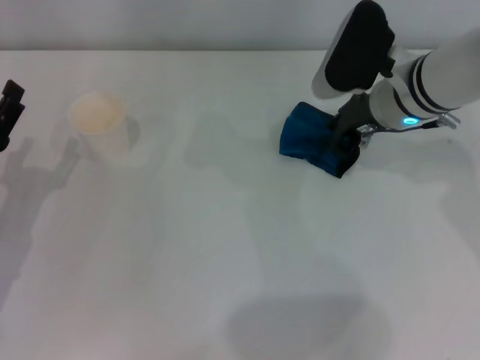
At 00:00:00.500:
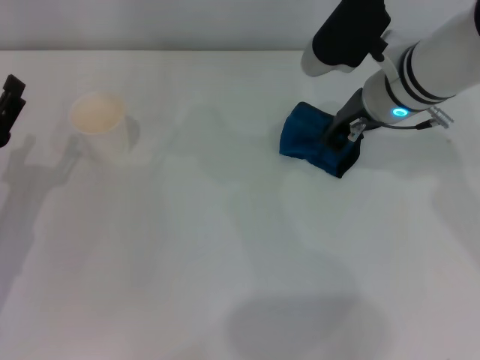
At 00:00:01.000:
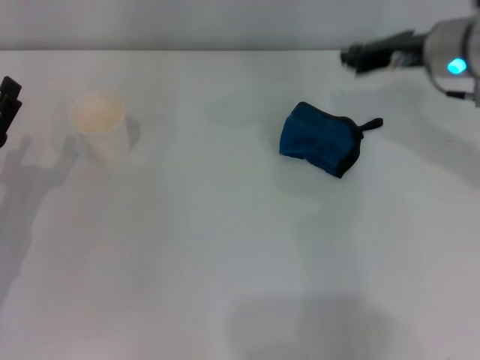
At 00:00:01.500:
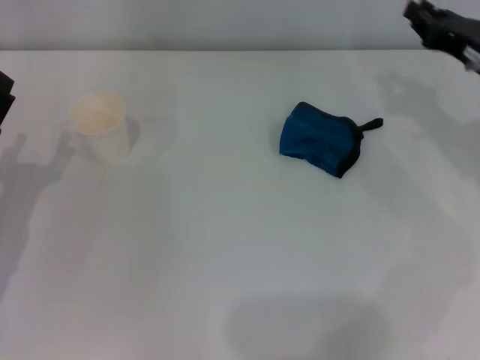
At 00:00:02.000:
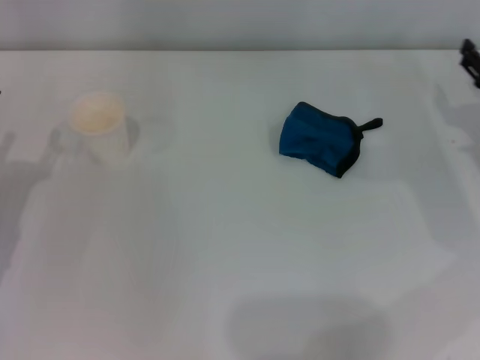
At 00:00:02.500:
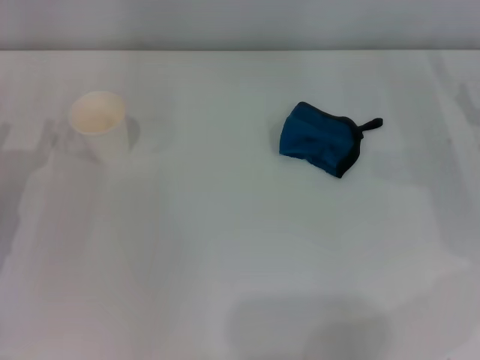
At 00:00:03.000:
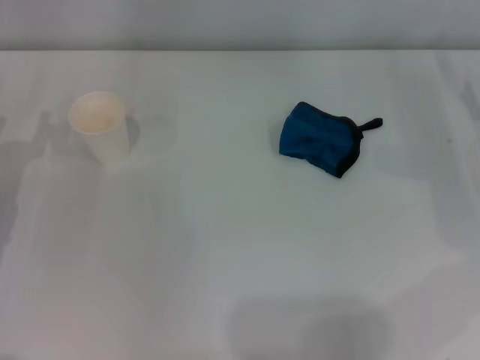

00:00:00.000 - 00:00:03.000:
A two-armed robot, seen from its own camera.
00:00:00.000 - 00:00:01.500: The right gripper travels to the right by roughly 15 cm.
00:00:01.500 - 00:00:03.000: The right gripper moves to the right, roughly 5 cm, and opens its fingers.

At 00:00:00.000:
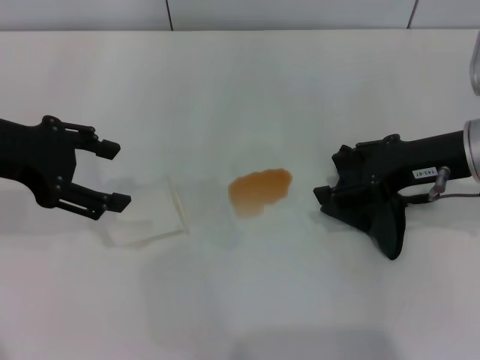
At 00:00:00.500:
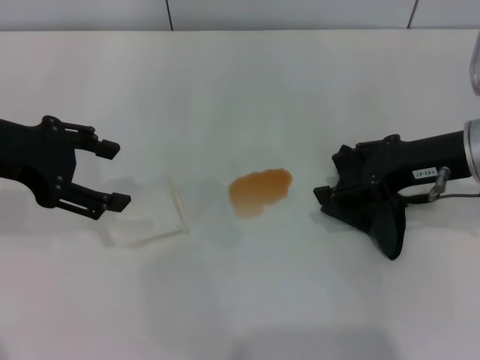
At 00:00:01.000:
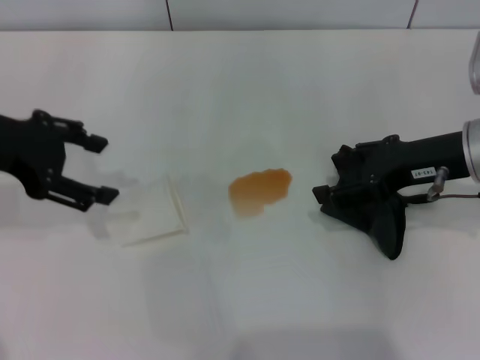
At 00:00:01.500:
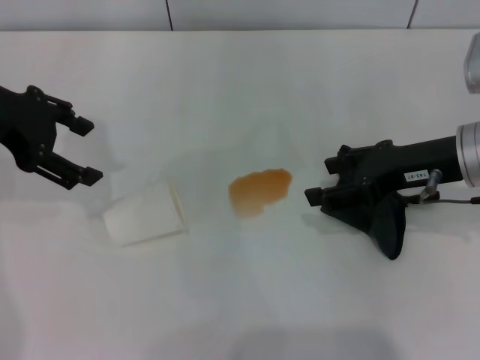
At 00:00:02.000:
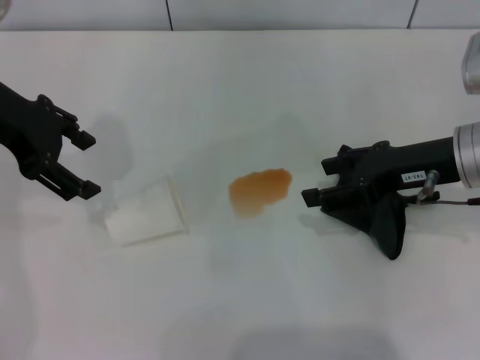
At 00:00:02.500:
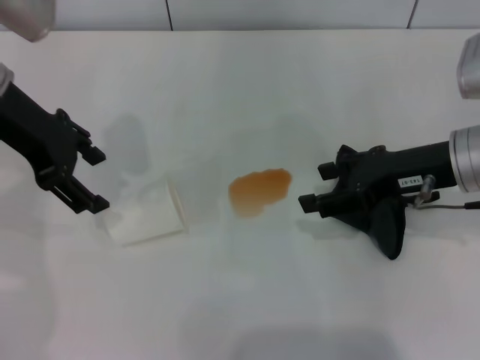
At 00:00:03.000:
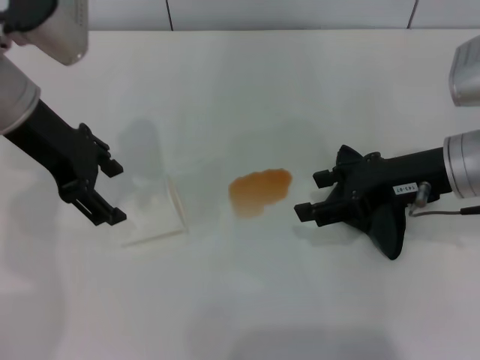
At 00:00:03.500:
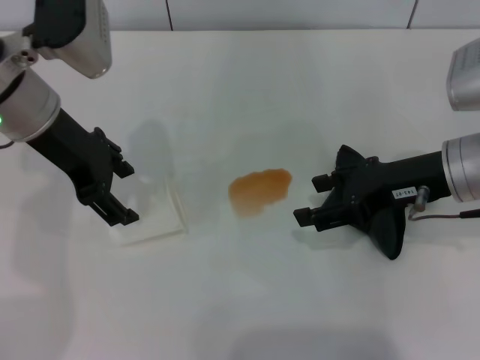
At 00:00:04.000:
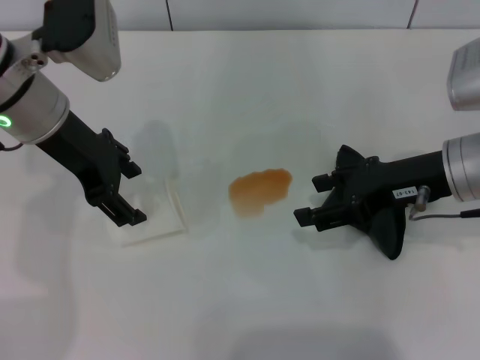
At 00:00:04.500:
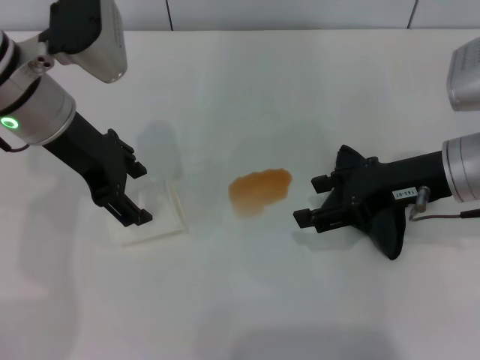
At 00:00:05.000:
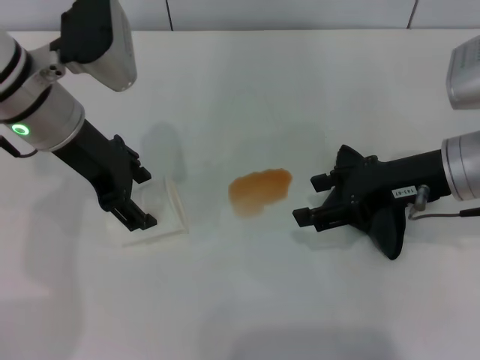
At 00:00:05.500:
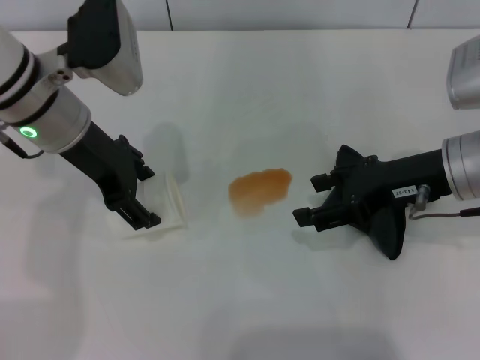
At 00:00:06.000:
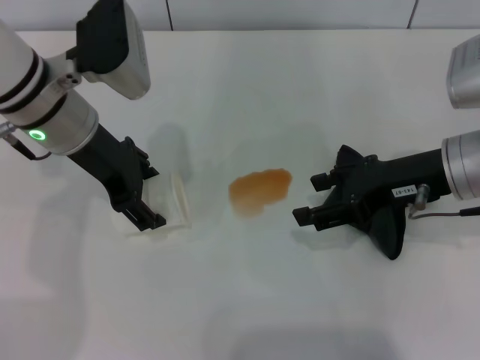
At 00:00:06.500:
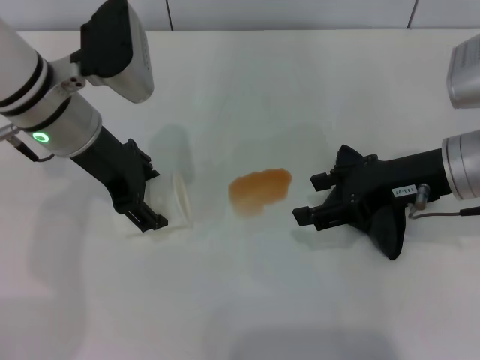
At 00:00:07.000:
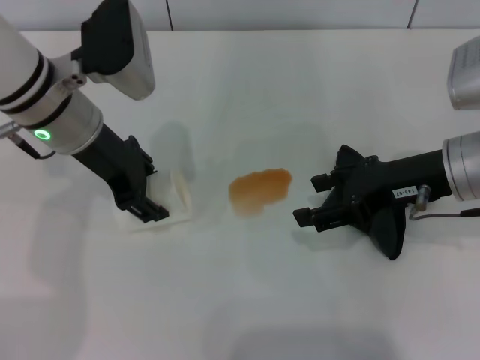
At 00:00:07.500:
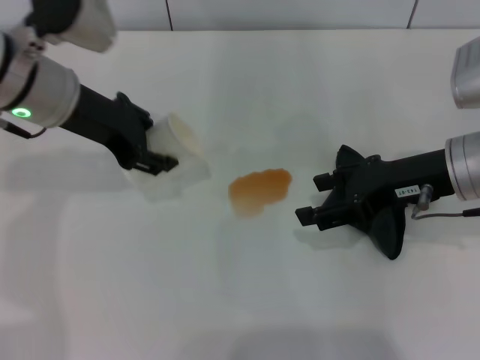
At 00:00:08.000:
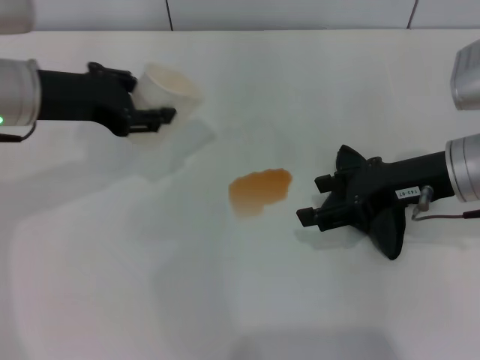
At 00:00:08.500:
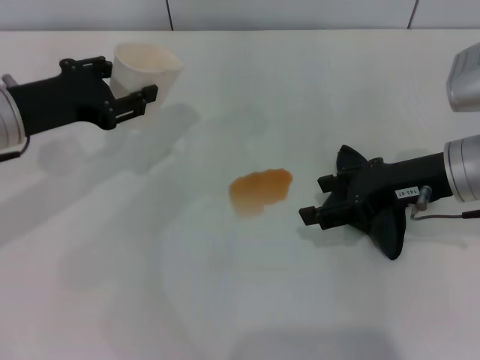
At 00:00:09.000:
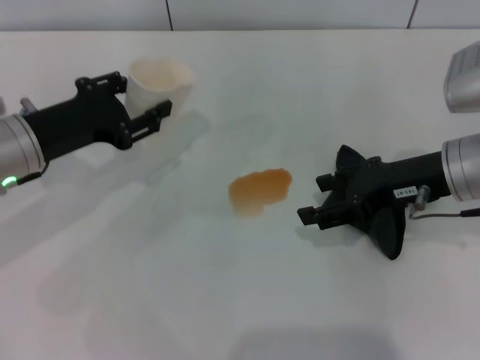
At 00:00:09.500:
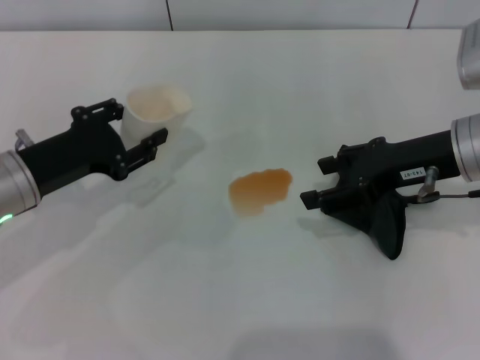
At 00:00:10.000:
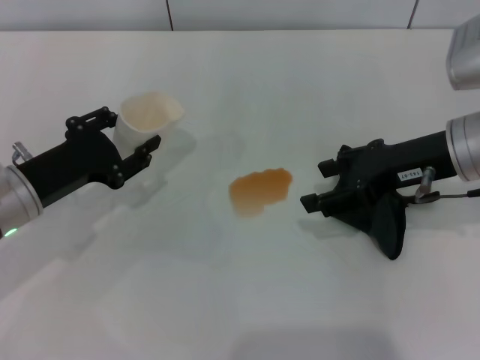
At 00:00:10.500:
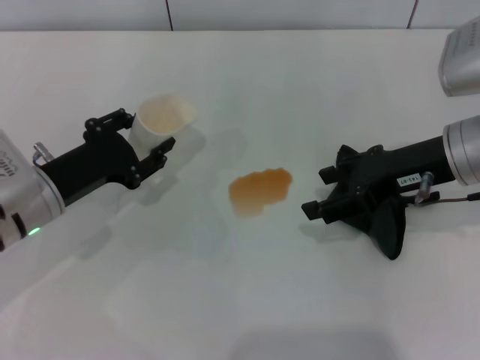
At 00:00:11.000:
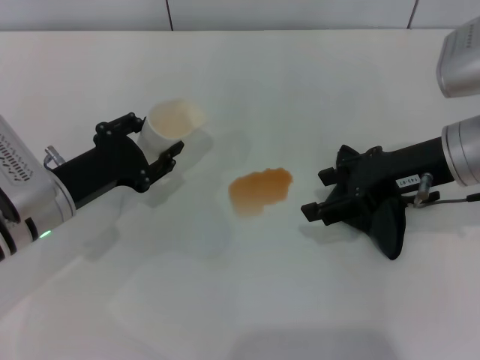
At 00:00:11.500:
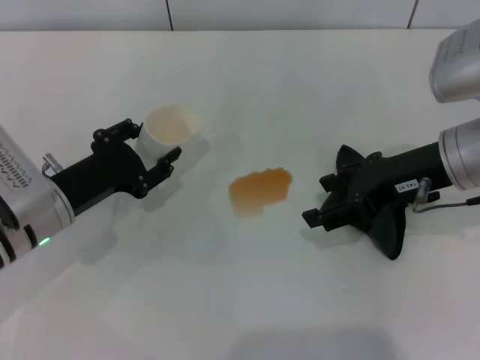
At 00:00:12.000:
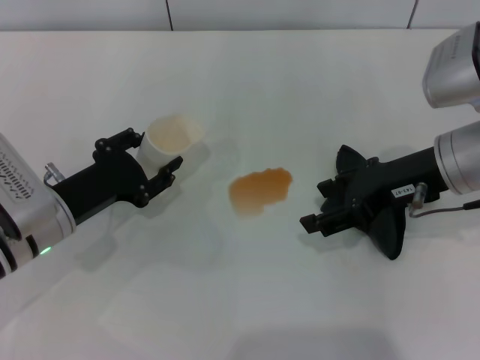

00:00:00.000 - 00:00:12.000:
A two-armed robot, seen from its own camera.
Step, 00:00:00.000 - 00:00:06.500: Grasp the paper cup with the left gripper.
00:00:00.000 - 00:00:02.000: The left gripper changes place by roughly 5 cm.
00:00:02.000 - 00:00:04.000: The left gripper moves to the right, roughly 5 cm.
00:00:04.000 - 00:00:06.000: The grippers make only small movements.
00:00:06.000 - 00:00:08.000: The left gripper shifts some 5 cm to the left, and closes up.
00:00:08.000 - 00:00:10.000: The left gripper is displaced downward and backward by about 15 cm.
00:00:10.000 - 00:00:12.000: The grippers make only small movements.

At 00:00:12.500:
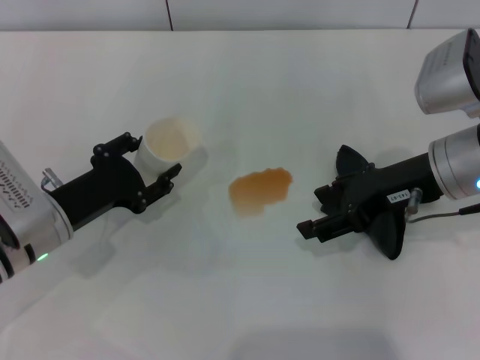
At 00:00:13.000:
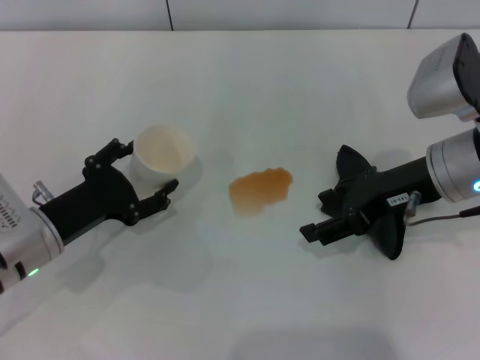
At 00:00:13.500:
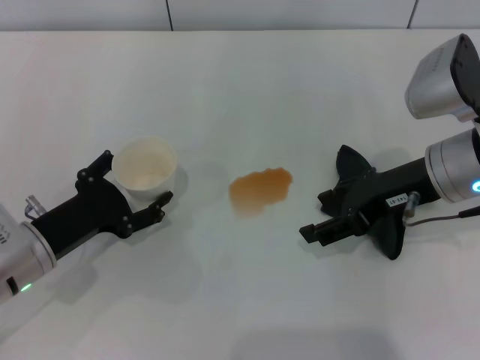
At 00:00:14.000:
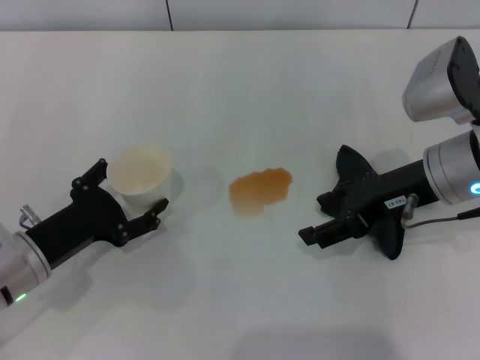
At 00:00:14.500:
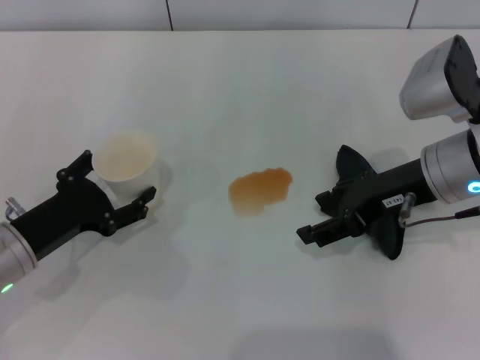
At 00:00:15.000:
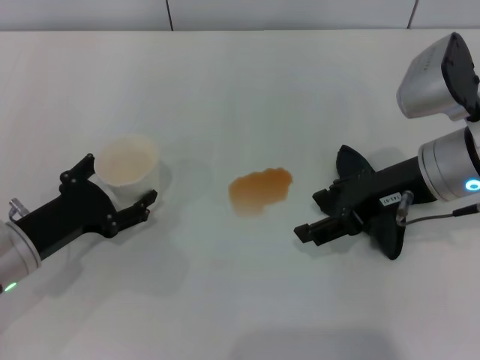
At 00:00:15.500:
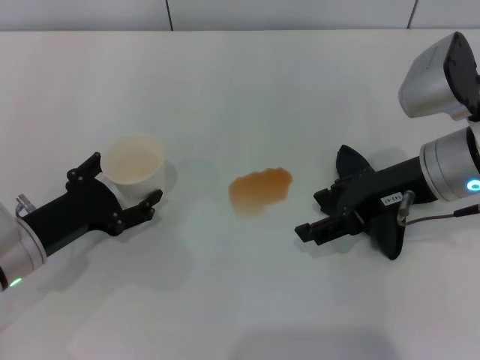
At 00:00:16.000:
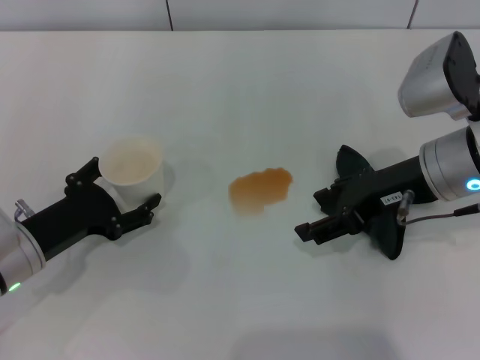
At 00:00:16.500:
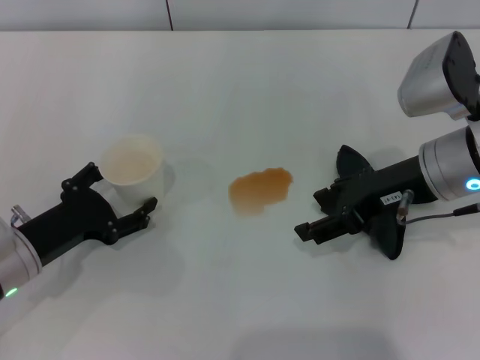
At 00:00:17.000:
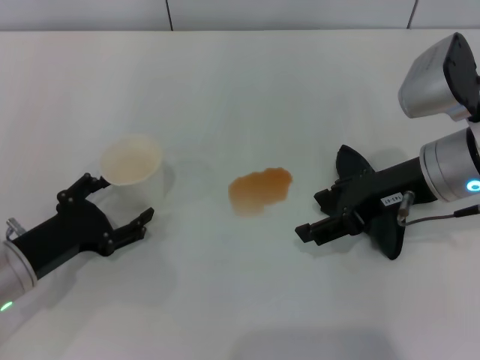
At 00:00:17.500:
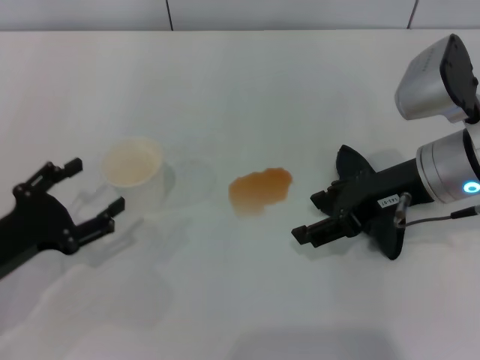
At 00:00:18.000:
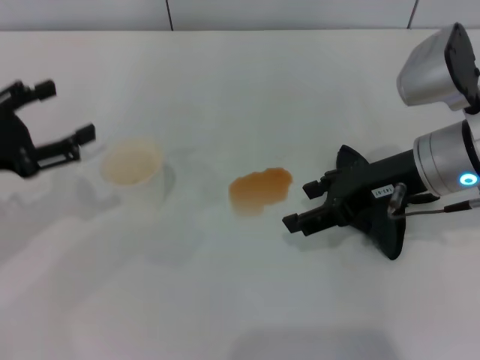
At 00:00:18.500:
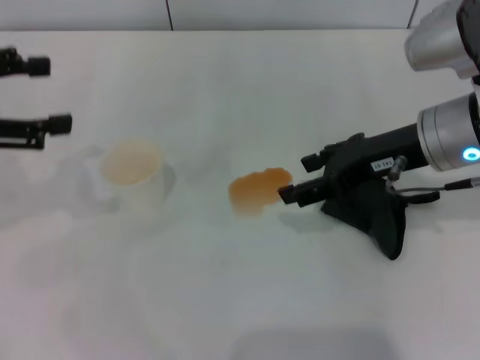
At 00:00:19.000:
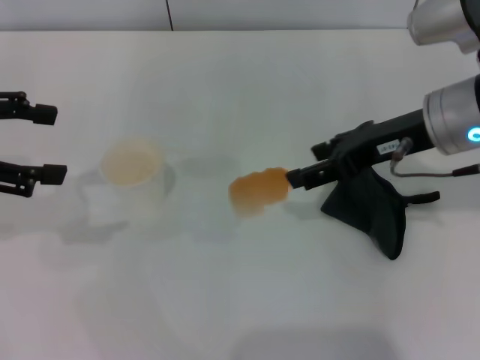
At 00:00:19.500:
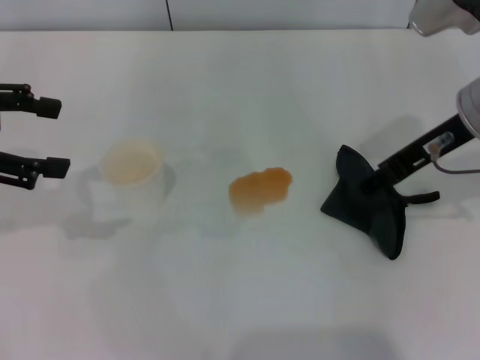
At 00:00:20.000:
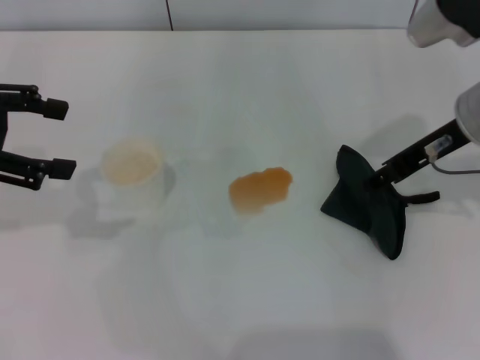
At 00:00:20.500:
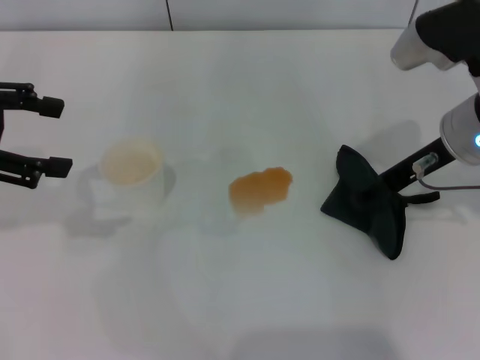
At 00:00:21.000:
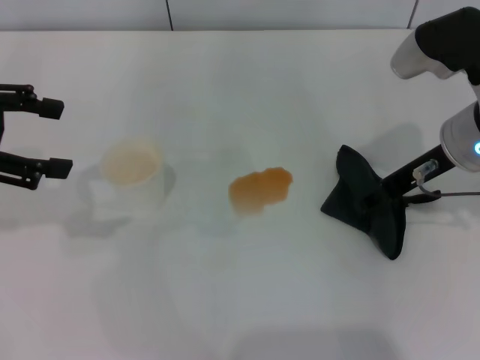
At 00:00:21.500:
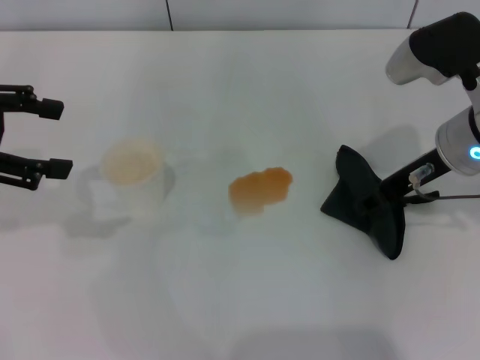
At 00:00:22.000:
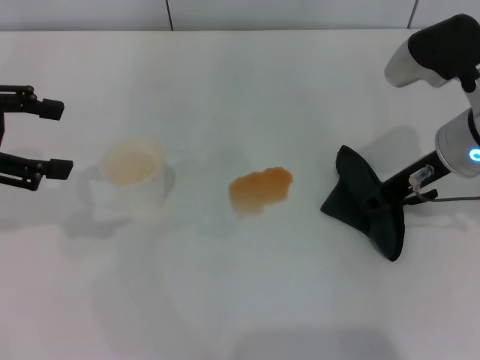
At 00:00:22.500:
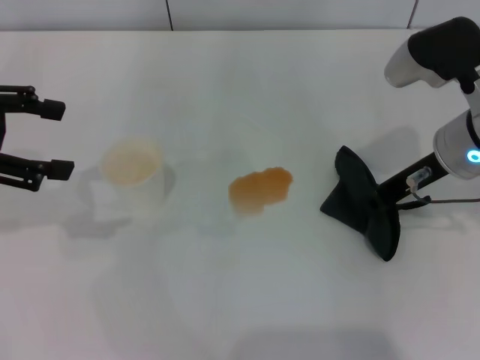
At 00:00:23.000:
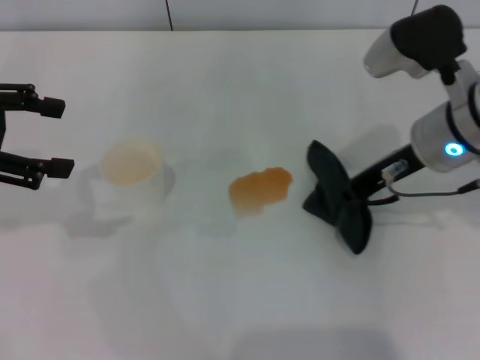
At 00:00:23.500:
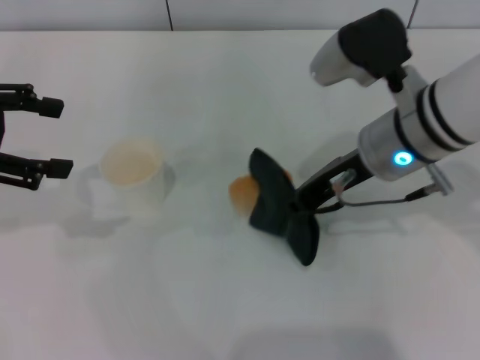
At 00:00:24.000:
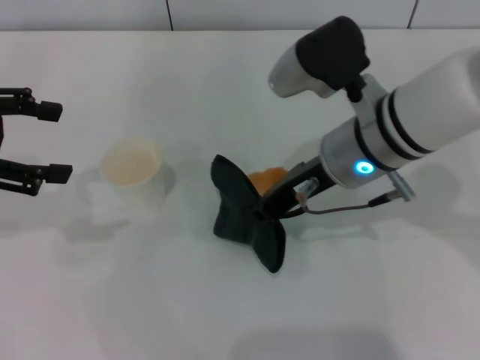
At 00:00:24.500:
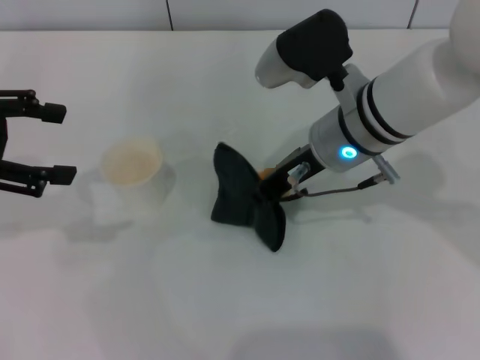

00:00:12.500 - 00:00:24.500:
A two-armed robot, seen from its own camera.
Step, 00:00:12.500 - 00:00:17.000: Stand the paper cup upright with the left gripper.
Step, 00:00:17.500 - 00:00:22.000: Grasp the rag with the right gripper.
00:00:12.500 - 00:00:14.500: The left gripper opens up.
00:00:14.500 - 00:00:16.500: The two grippers keep their place.
00:00:16.500 - 00:00:18.500: The left gripper goes roughly 20 cm upward.
00:00:20.500 - 00:00:22.500: The right gripper closes up.
00:00:22.500 - 00:00:24.500: The right gripper is displaced to the left by approximately 10 cm.
